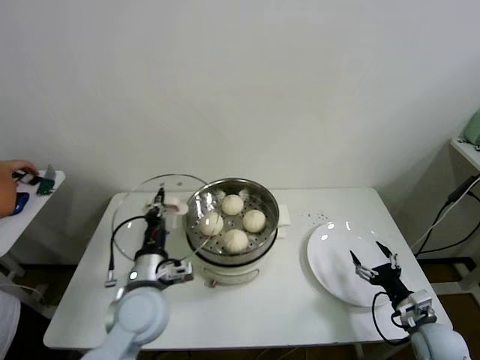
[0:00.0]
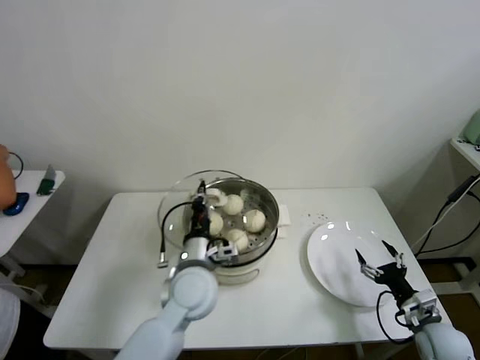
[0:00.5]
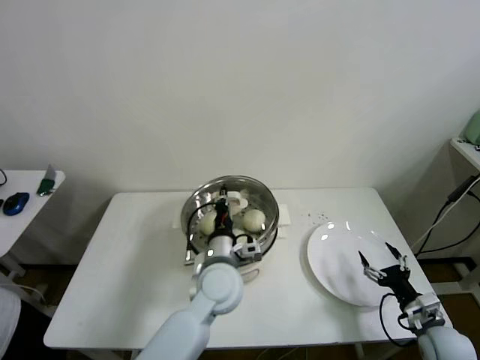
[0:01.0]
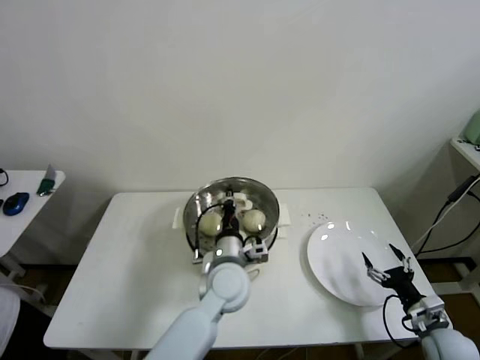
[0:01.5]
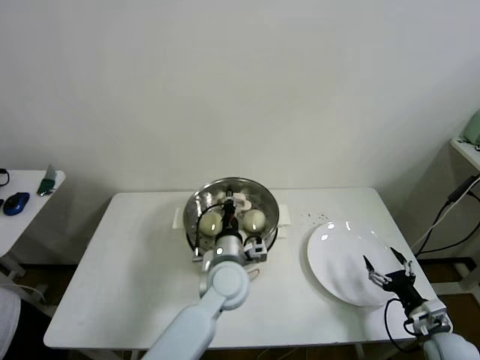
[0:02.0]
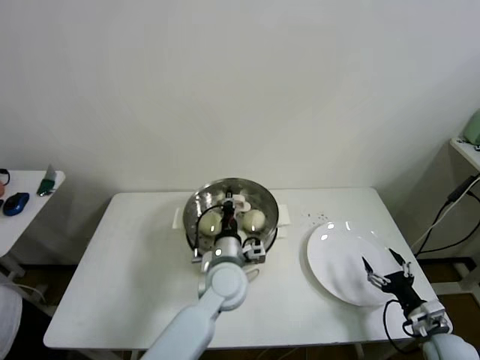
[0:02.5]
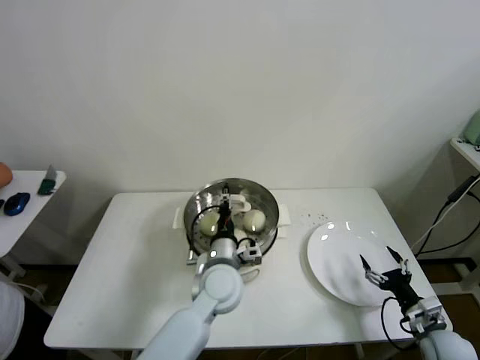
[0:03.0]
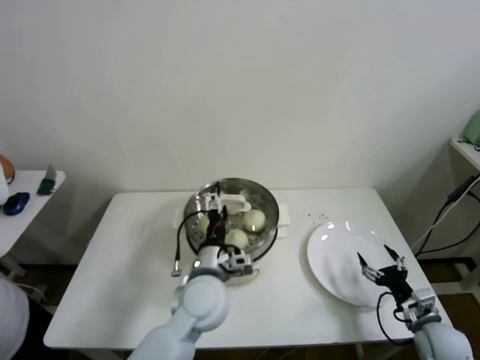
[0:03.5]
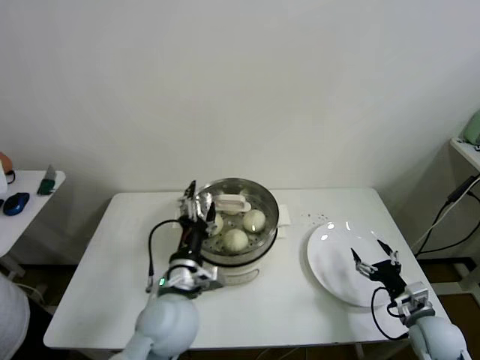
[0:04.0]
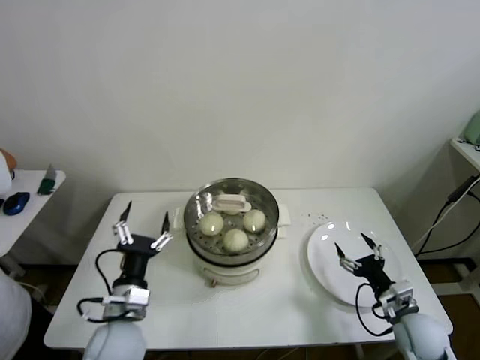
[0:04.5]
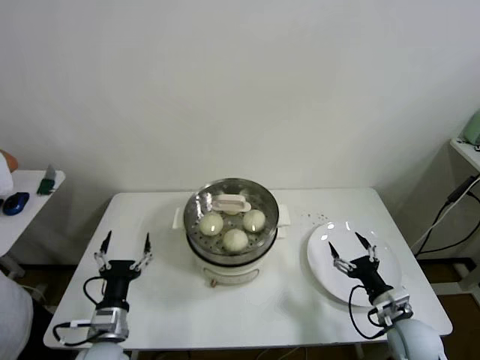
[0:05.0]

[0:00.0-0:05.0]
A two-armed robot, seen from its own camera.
Step, 0:00.0 to 0:02.5: Place the pot lid on the steamer with left gripper.
0:00.0 to 0:02.5: The left gripper moves to the right and forward, approximately 20 cm.
0:02.5 to 0:05.0: The left gripper goes some 25 cm to the left and backward, and opens its fingers; the right gripper shifts about 10 cm to the left.

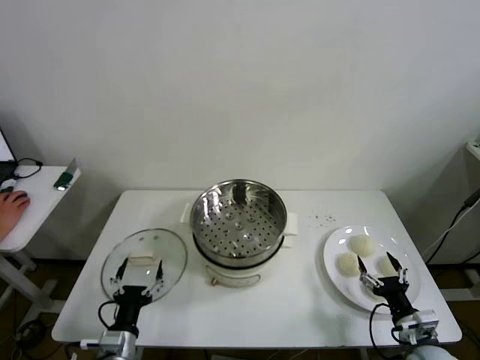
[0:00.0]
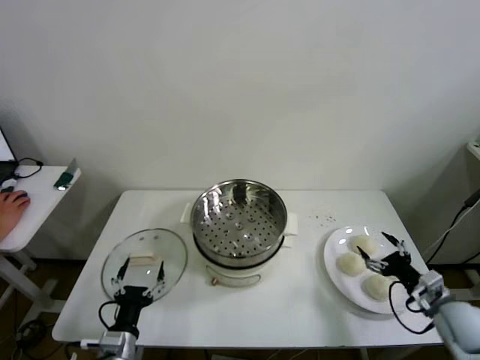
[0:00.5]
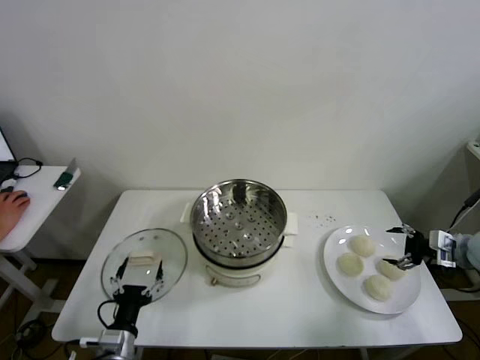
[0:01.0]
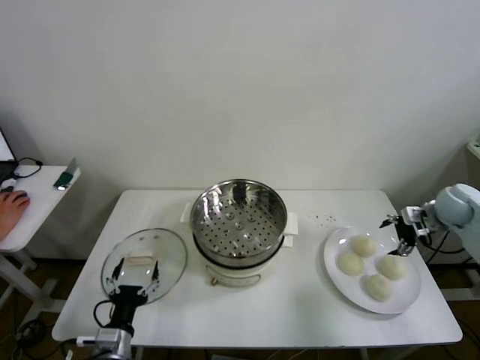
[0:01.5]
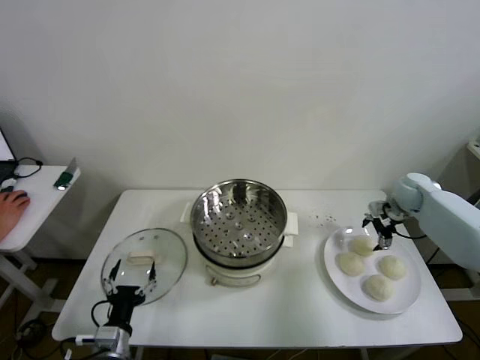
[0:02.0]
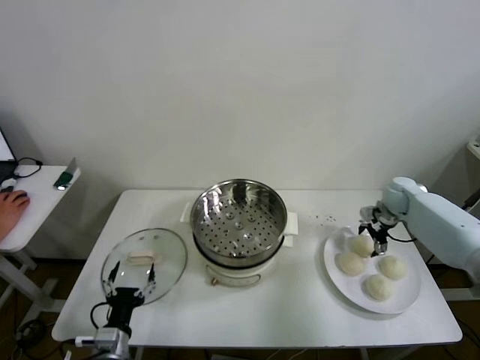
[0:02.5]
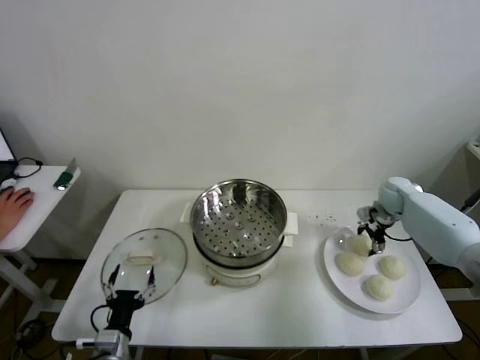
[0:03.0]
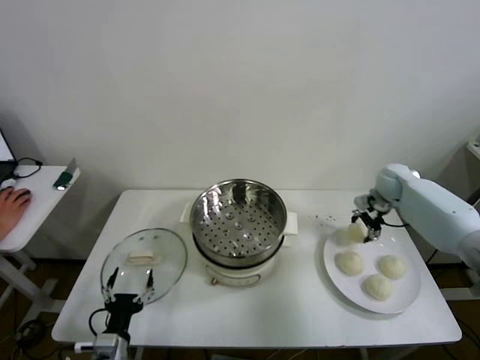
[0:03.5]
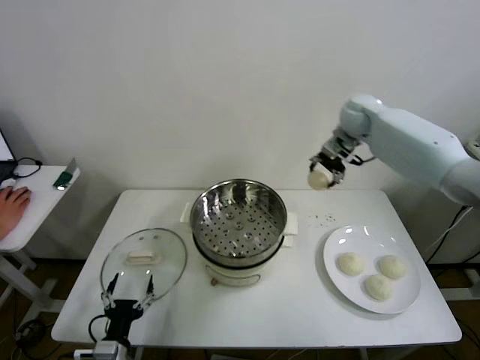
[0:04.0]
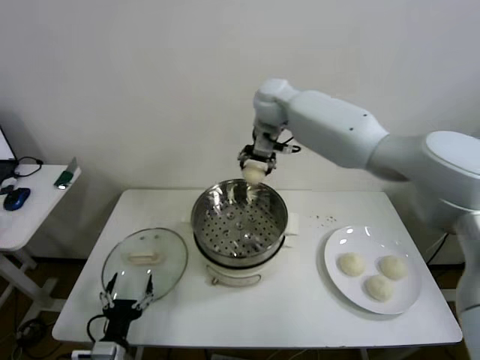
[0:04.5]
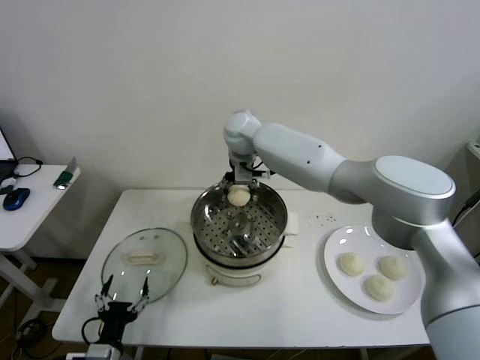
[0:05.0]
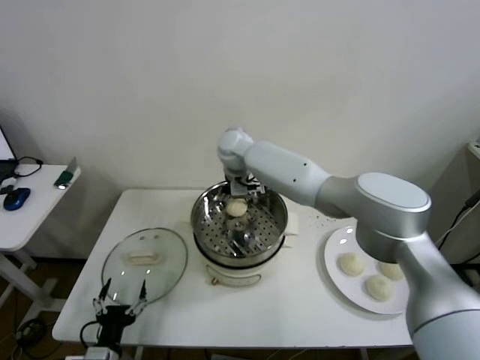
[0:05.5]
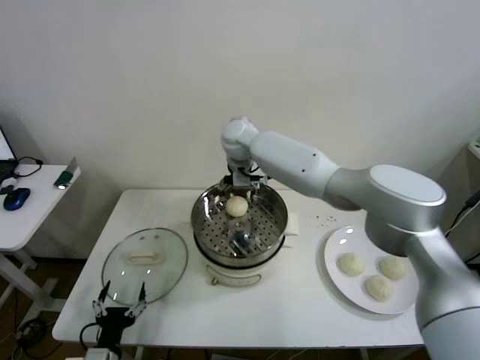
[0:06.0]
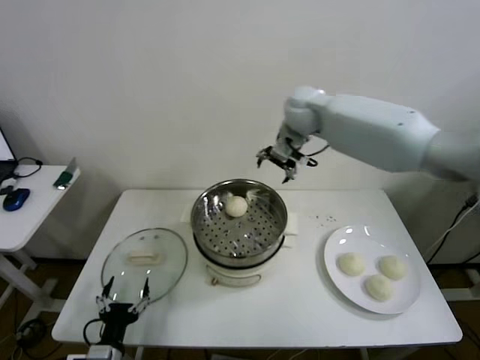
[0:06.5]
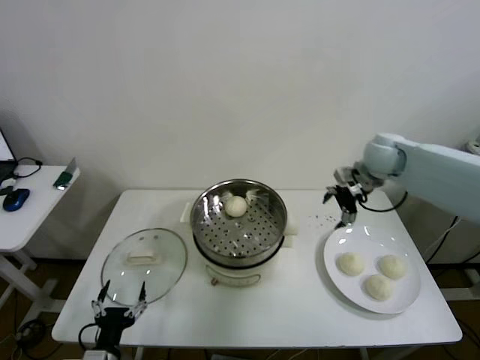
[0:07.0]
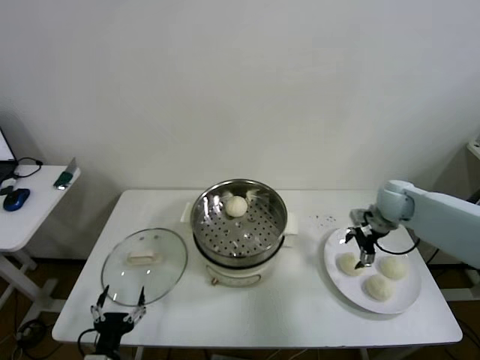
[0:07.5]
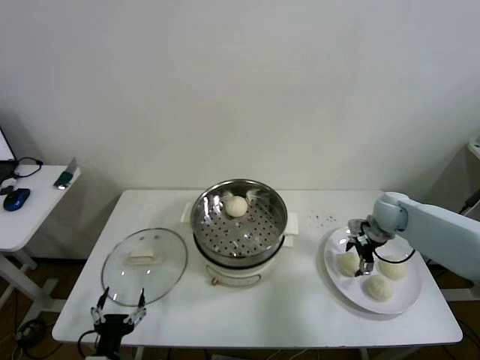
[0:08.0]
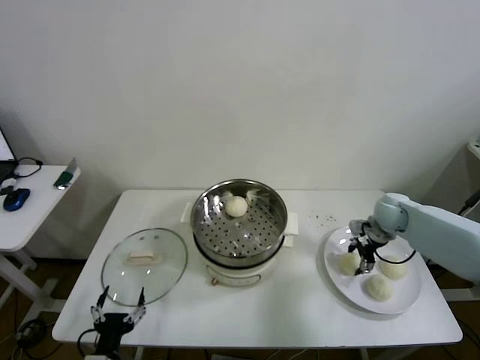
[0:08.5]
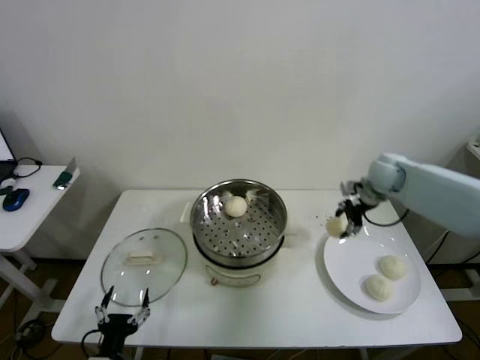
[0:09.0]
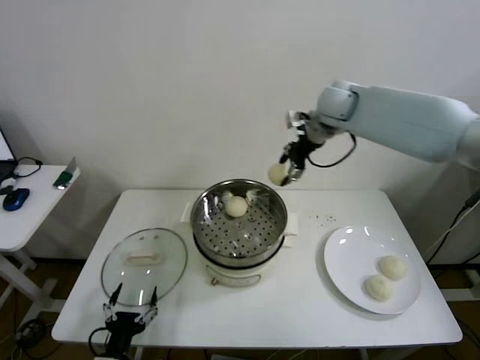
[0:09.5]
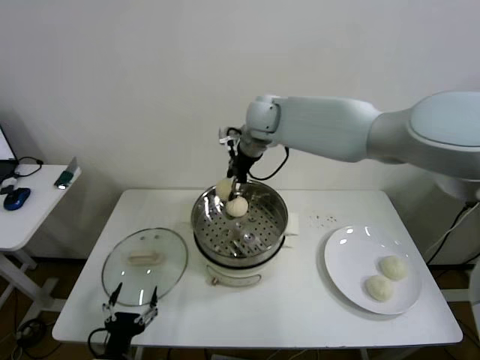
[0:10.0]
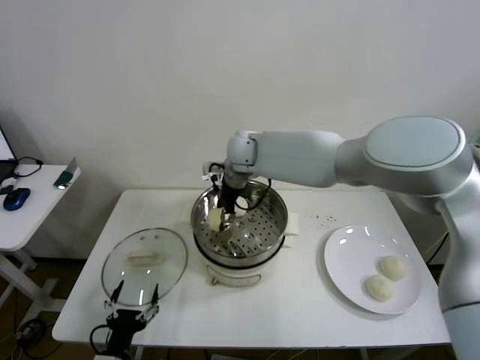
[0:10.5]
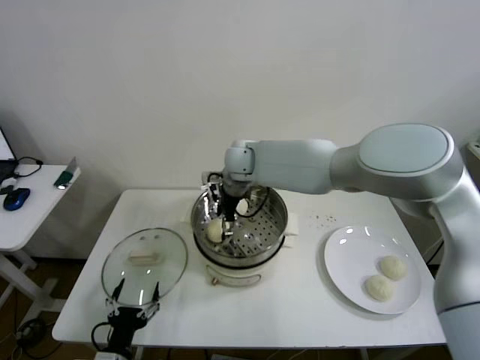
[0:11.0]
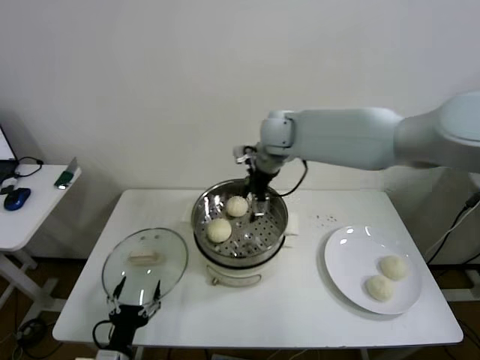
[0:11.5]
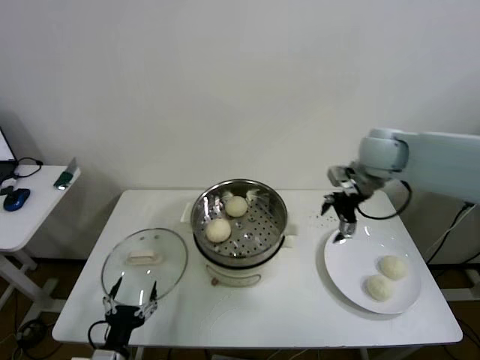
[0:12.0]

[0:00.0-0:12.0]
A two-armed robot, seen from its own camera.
Step, 0:00.0 to 0:03.0: Grasp the baozi in the plate with right gripper.
Step, 0:03.5 to 0:05.5: Place the baozi on the steamer with right gripper.
Step, 0:06.0 to 0:08.5: Grasp the baozi in the plate with right gripper.
Step, 0:09.0 to 0:10.5: Place the baozi on the steamer with right gripper.
0:02.0 to 0:04.0: The right gripper heads upward and to the left, covering about 30 cm, and closes its fingers.
0:04.0 to 0:06.0: The right gripper moves to the left, approximately 20 cm, and opens up.
0:06.0 to 0:08.0: The right gripper travels to the right and downward by some 40 cm.
0:08.0 to 0:10.0: The right gripper travels to the left and upward by about 40 cm, and closes.
0:10.0 to 0:12.0: The right gripper moves to the right, some 30 cm, and opens its fingers.

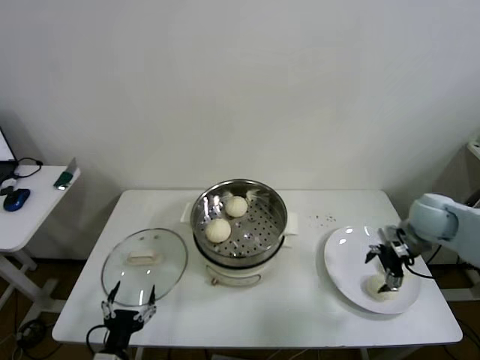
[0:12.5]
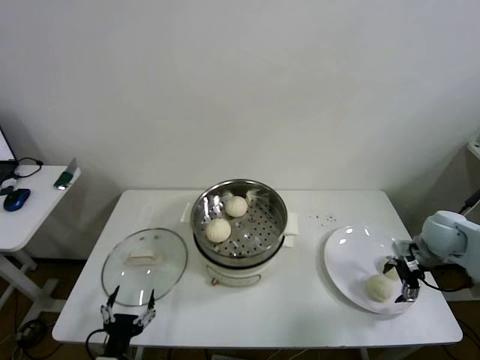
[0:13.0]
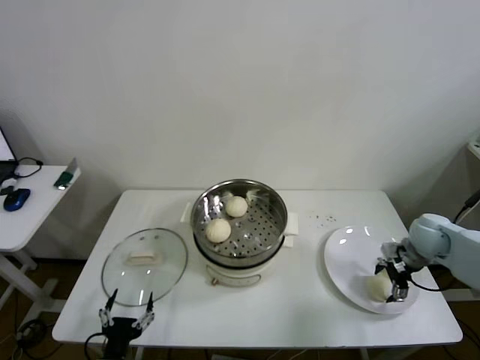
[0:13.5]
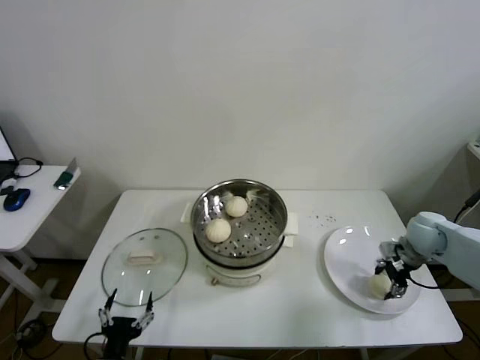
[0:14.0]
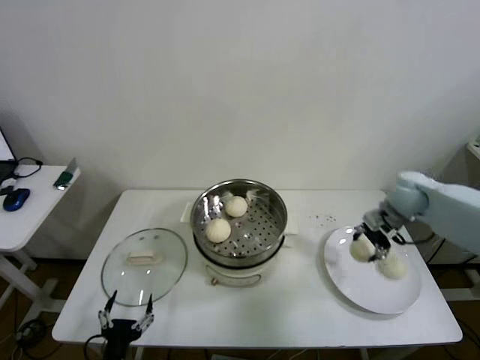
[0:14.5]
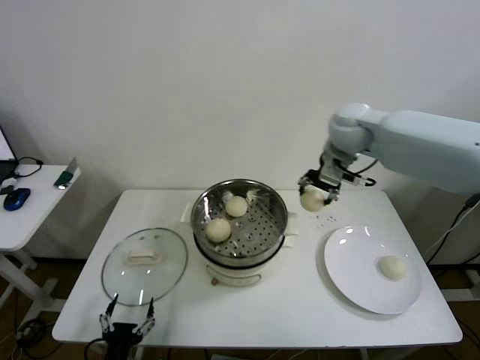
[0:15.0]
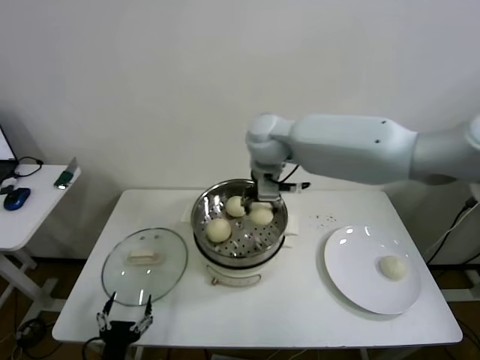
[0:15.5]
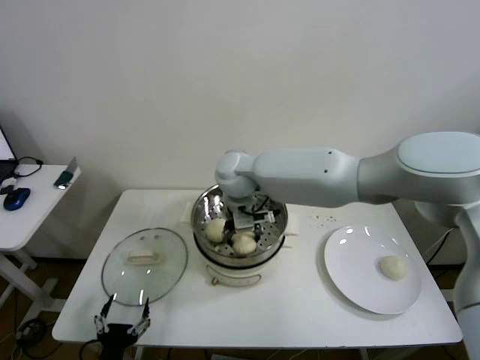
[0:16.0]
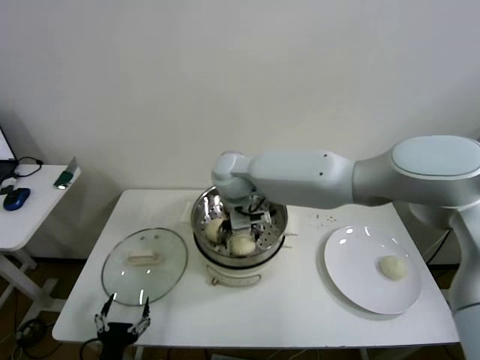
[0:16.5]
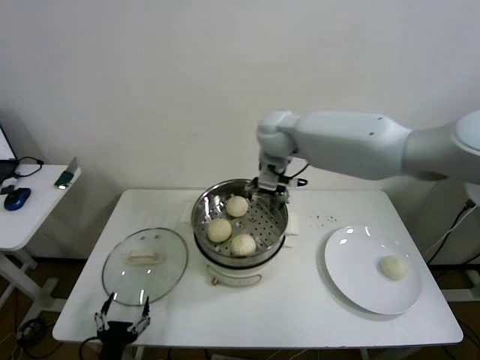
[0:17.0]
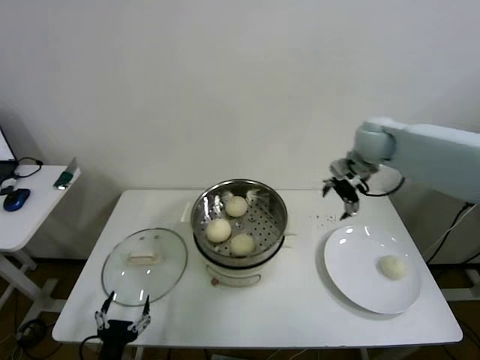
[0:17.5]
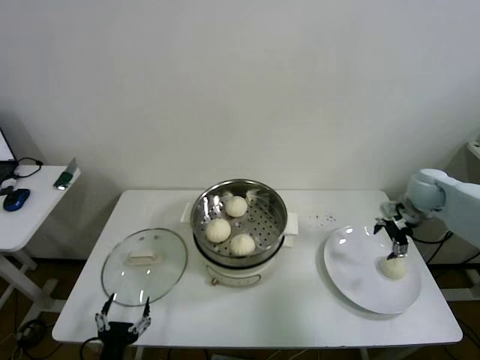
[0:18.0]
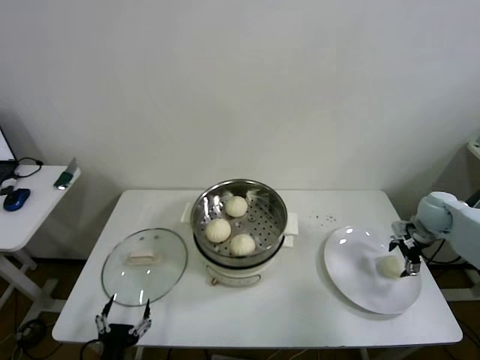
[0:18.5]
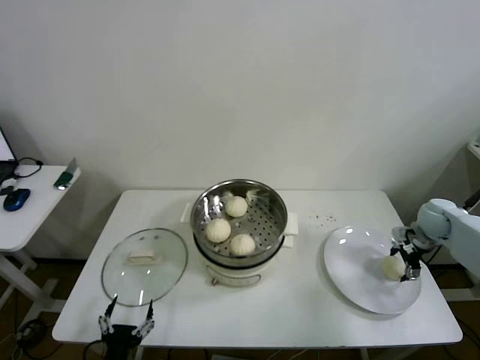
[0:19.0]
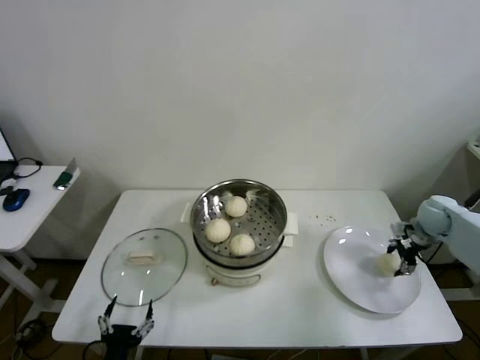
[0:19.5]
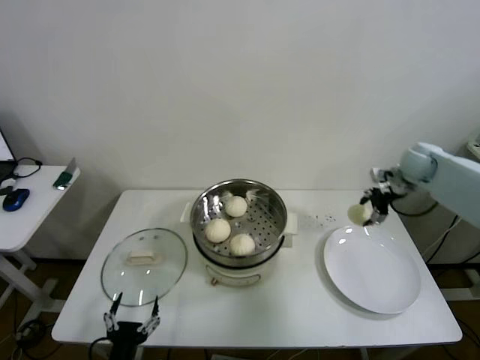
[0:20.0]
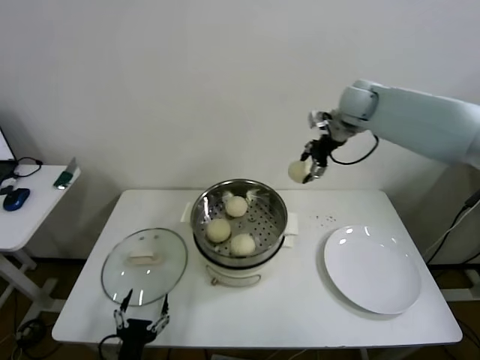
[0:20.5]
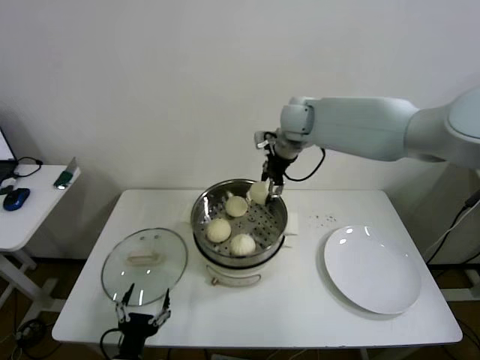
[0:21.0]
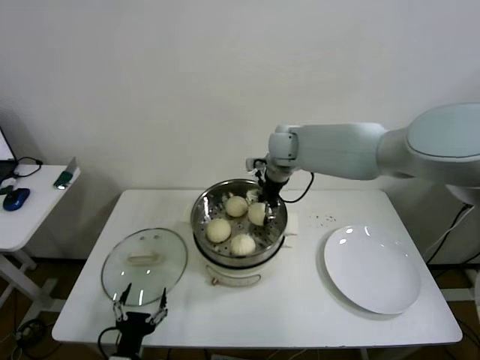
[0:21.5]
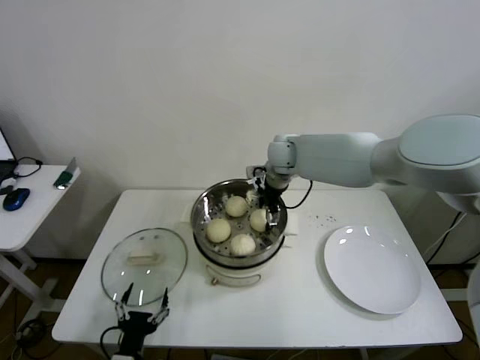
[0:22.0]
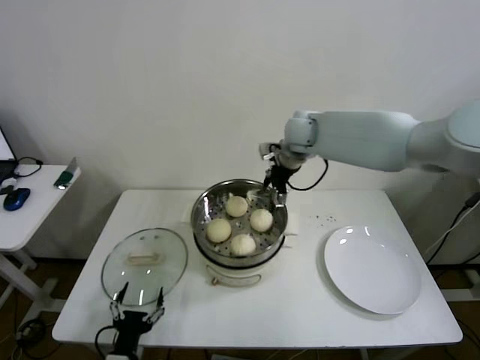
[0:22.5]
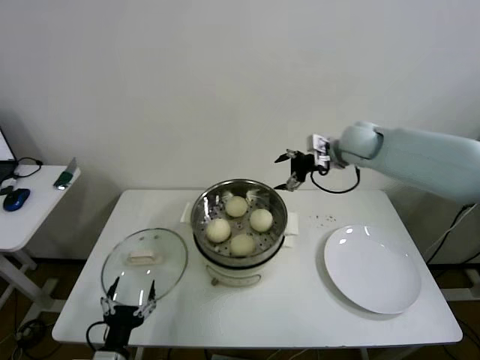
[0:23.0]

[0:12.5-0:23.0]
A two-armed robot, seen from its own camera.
Step, 0:14.0 to 0:16.0: Place the baozi on the steamer with right gripper.
Step, 0:16.5 to 0:19.0: Grasp the baozi in the plate with right gripper.
Step, 0:19.5 to 0:21.5: Place the baozi on the steamer with right gripper.
0:12.5 to 0:14.5: The right gripper heads forward and to the left, covering about 10 cm, and closes.
0:14.5 to 0:16.5: The right gripper travels to the left by approximately 40 cm, and opens up.
0:16.5 to 0:19.0: The right gripper heads to the right, covering approximately 50 cm.
0:19.0 to 0:21.0: The right gripper moves to the left and upward, some 40 cm, and closes up.
0:21.0 to 0:23.0: The right gripper shifts about 15 cm to the right, and opens its fingers.
